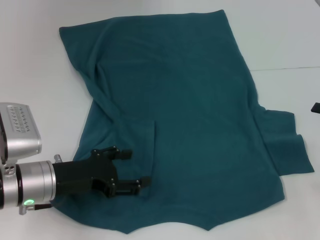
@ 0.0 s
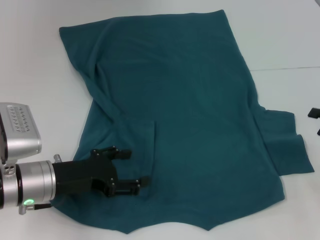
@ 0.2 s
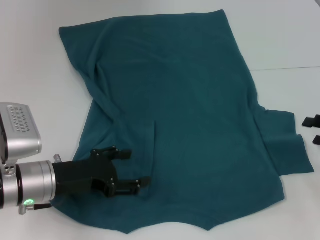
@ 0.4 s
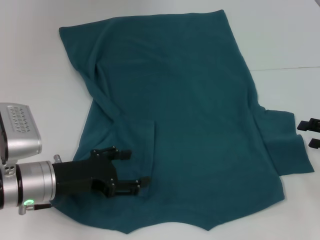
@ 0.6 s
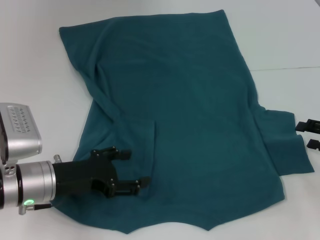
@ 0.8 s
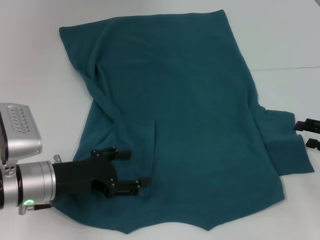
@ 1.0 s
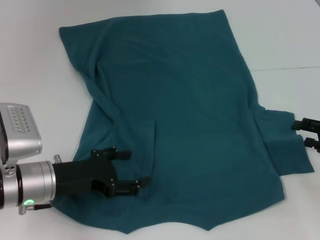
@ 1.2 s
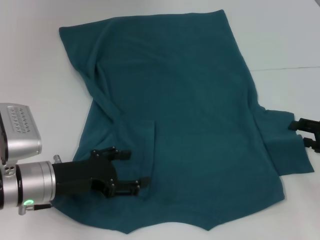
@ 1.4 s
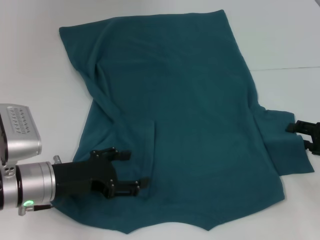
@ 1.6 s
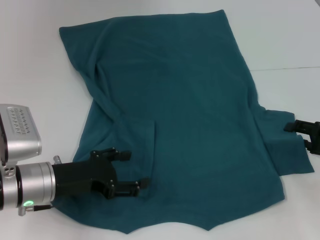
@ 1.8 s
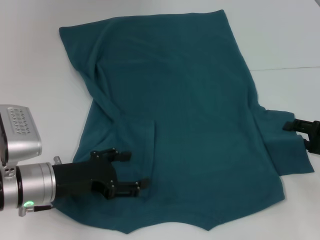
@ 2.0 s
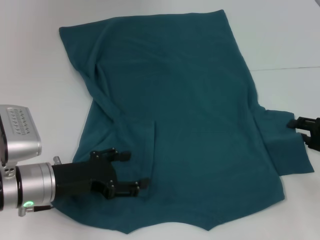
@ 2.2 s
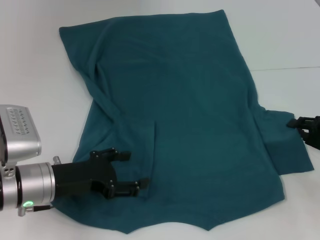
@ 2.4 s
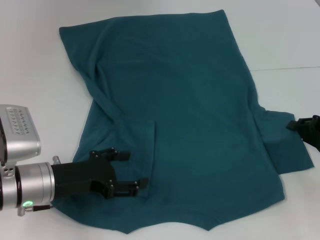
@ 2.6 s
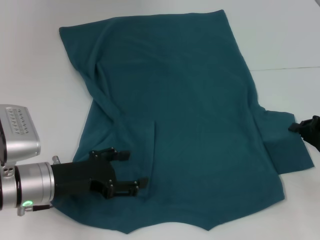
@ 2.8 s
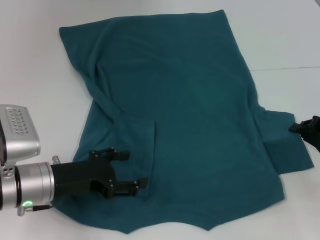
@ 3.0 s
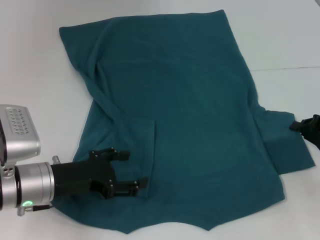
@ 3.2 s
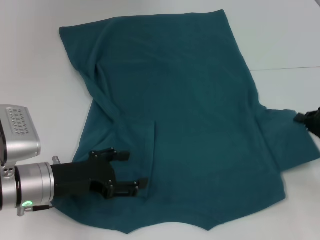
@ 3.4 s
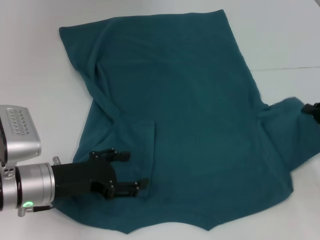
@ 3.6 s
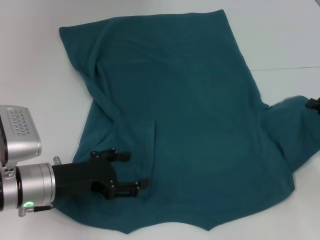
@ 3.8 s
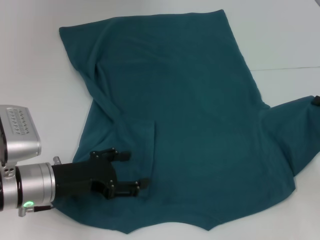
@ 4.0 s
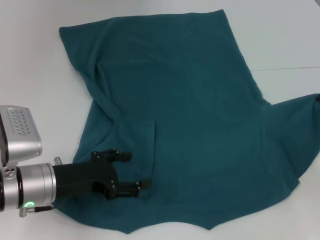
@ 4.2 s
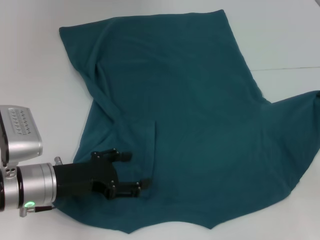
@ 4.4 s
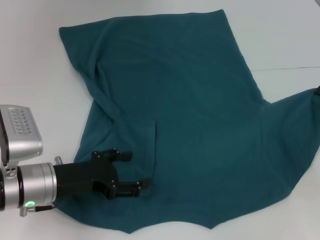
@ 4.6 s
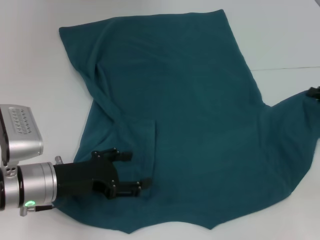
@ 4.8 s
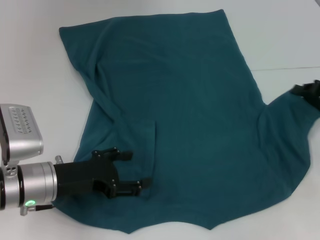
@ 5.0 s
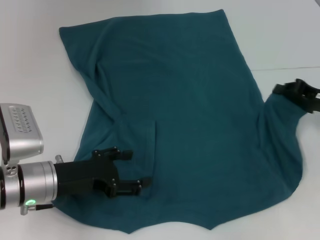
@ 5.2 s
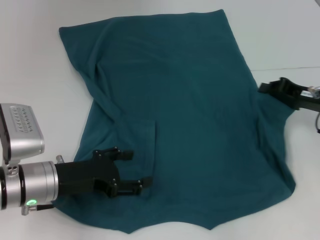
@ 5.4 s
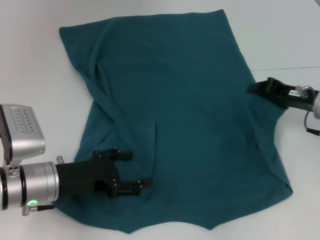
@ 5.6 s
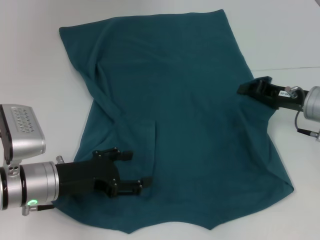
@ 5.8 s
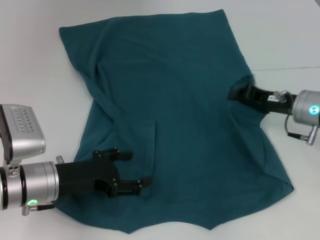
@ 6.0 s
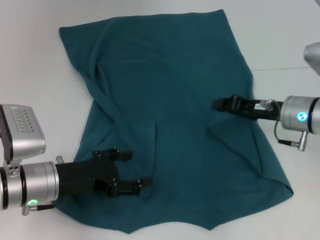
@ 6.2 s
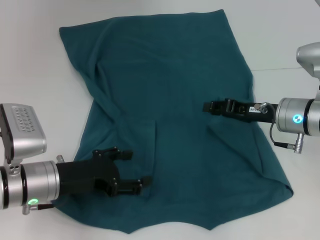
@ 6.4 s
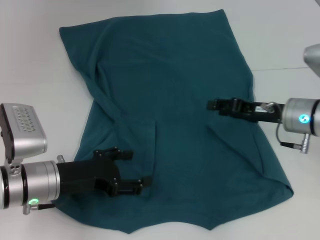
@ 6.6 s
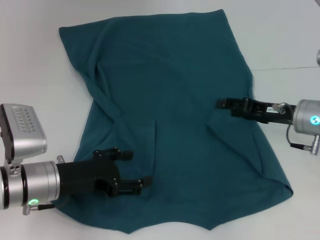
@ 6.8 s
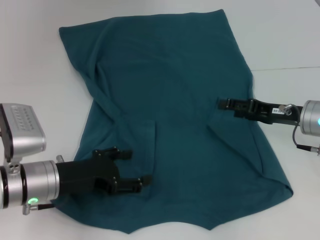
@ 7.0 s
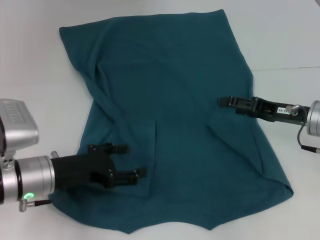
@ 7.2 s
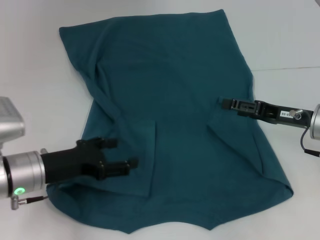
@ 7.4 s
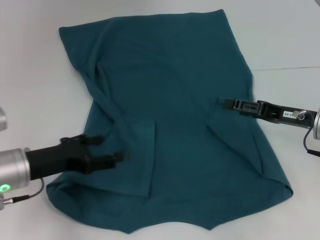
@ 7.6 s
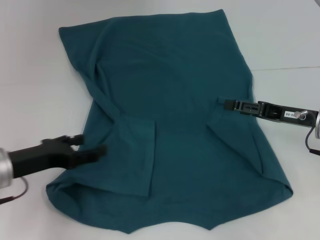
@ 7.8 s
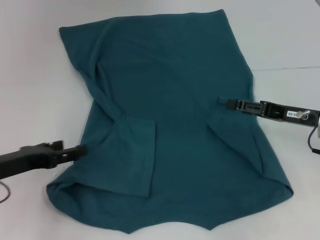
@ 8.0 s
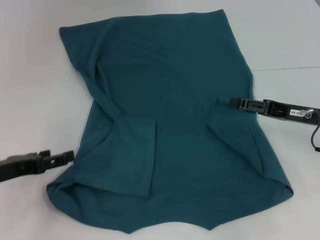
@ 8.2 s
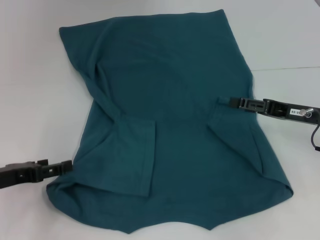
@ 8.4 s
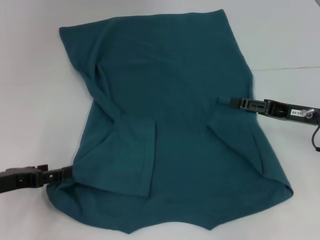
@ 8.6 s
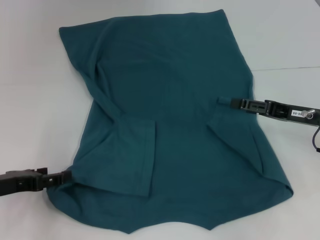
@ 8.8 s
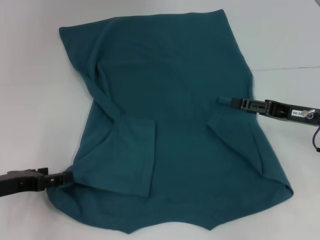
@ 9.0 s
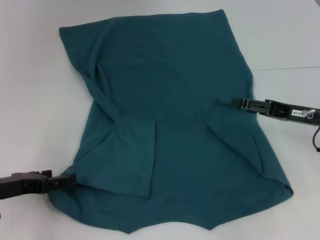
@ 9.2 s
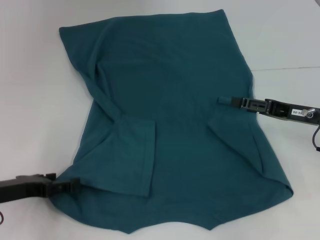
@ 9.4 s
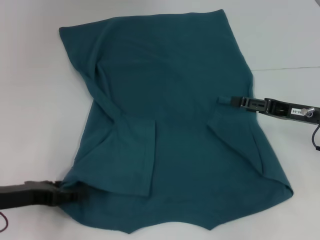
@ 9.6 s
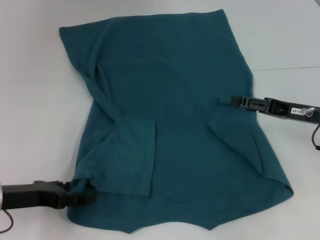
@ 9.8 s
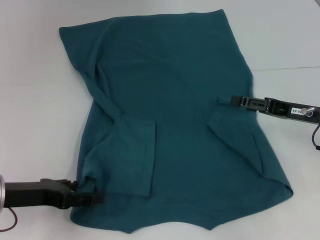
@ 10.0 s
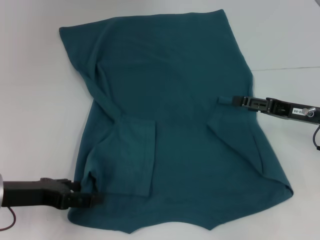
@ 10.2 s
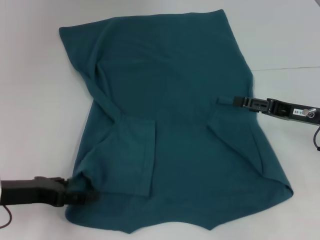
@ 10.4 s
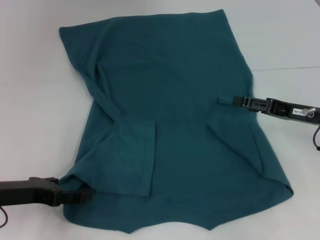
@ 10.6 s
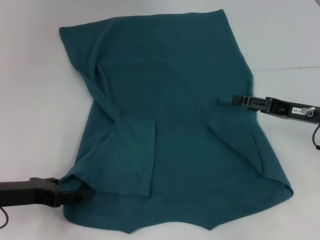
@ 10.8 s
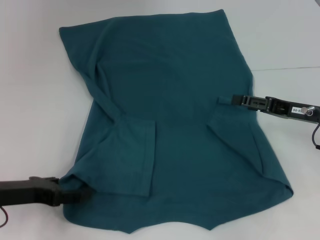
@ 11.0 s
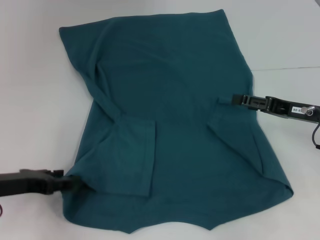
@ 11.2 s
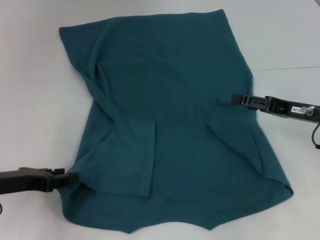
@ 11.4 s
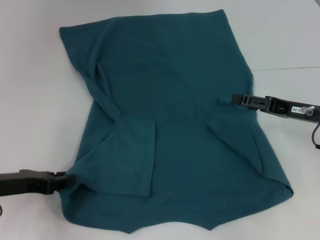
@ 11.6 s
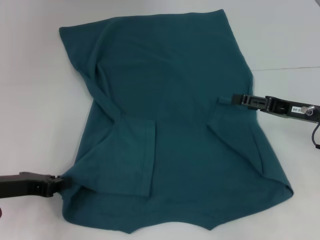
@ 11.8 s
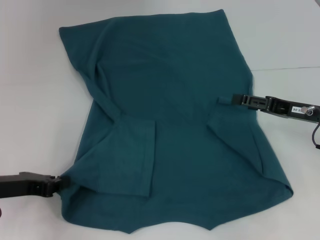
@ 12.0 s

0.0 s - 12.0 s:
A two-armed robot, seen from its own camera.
Step, 0.0 s - 6.4 s: Fold the bottom right sleeve to the right.
0.0 s - 1.6 s: The right gripper moves some 5 cm.
1.6 s - 3.0 s: The right gripper closes up.
3.0 s - 4.4 s: The right gripper moves roughly 5 cm.
4.4 s - 6.0 s: The right gripper heads to the left, covering some 10 cm.
6.0 s - 7.6 s: The right gripper opens its fingers.
7.6 s - 9.0 s: The left gripper goes some 5 cm to the left.
9.0 s - 10.4 s: The grippers make only small movements.
10.4 s - 12.0 s: The left gripper closes up.

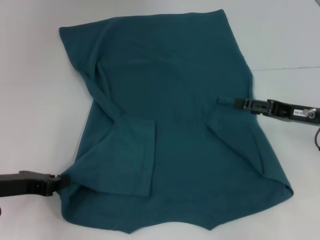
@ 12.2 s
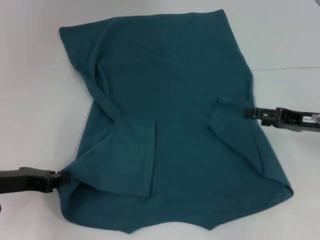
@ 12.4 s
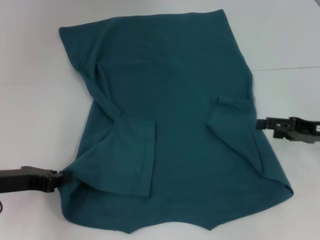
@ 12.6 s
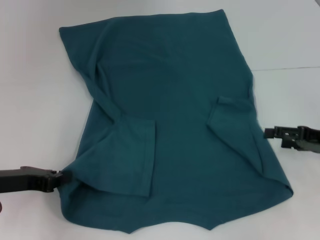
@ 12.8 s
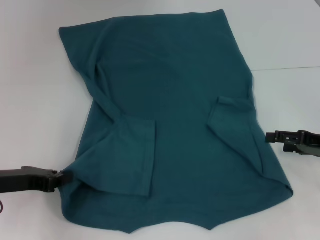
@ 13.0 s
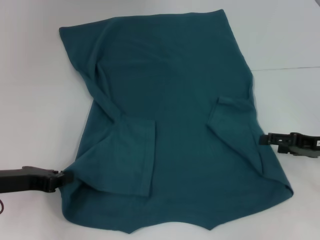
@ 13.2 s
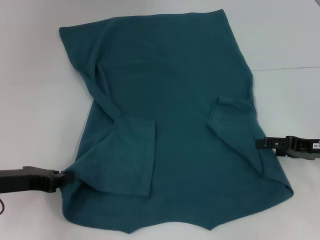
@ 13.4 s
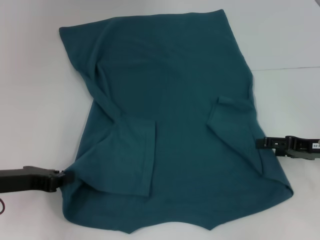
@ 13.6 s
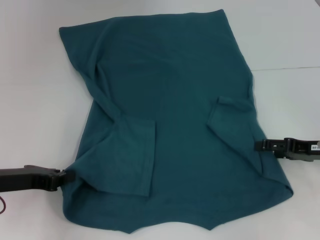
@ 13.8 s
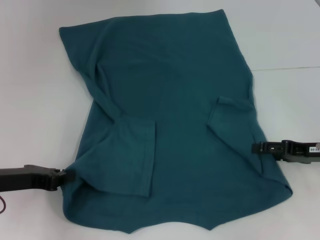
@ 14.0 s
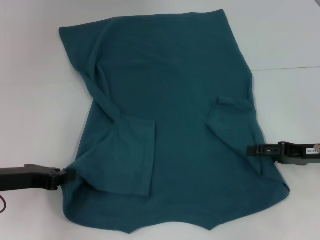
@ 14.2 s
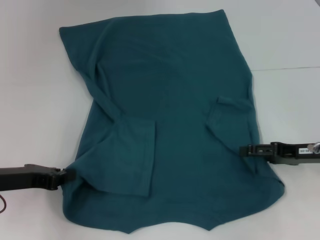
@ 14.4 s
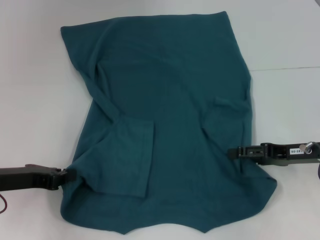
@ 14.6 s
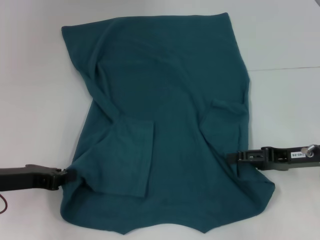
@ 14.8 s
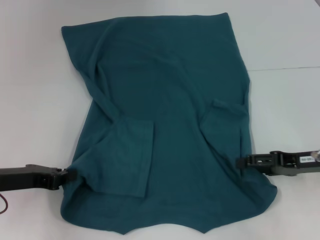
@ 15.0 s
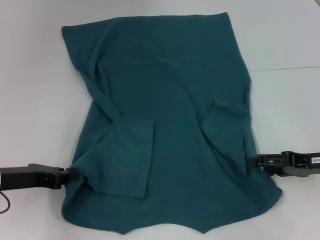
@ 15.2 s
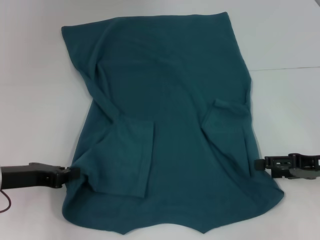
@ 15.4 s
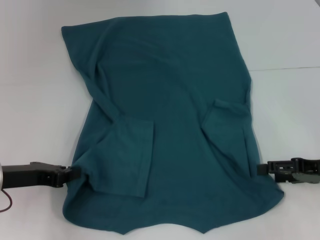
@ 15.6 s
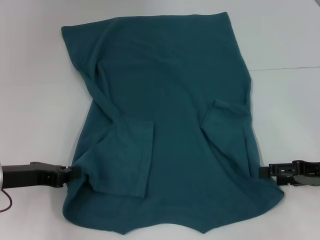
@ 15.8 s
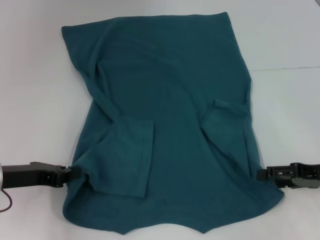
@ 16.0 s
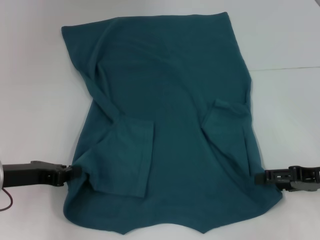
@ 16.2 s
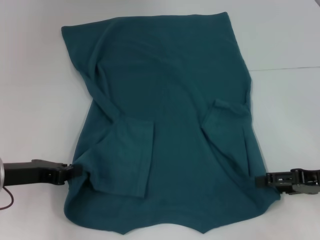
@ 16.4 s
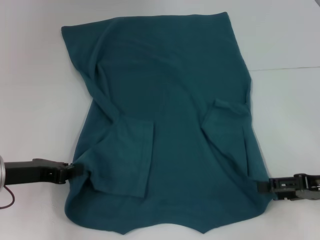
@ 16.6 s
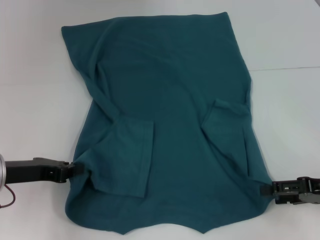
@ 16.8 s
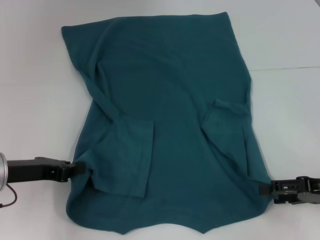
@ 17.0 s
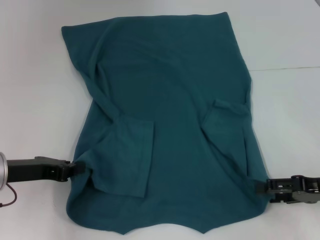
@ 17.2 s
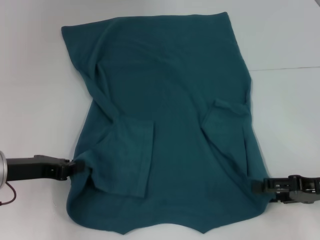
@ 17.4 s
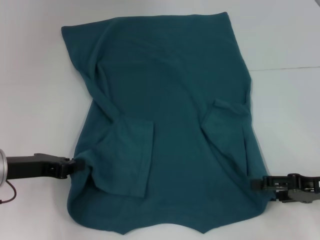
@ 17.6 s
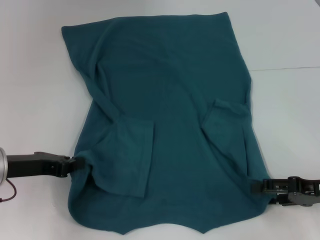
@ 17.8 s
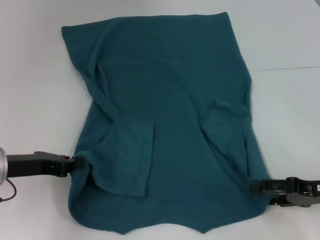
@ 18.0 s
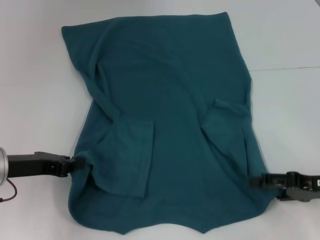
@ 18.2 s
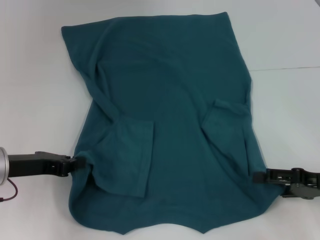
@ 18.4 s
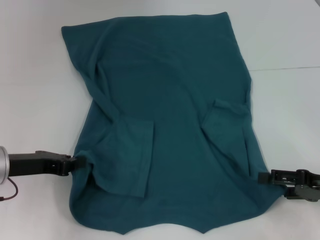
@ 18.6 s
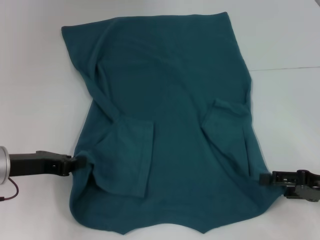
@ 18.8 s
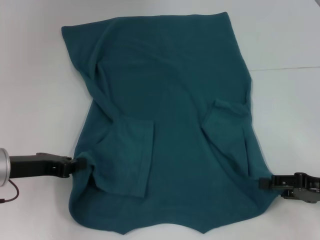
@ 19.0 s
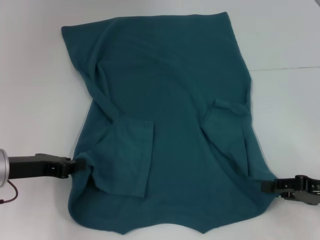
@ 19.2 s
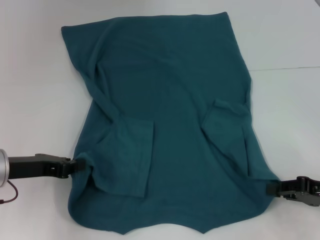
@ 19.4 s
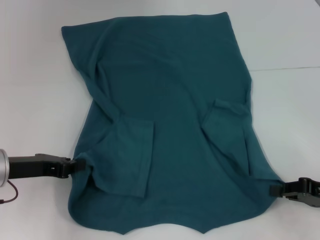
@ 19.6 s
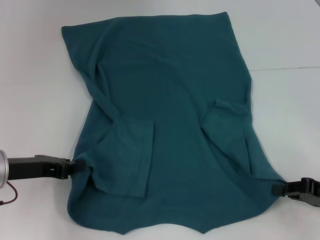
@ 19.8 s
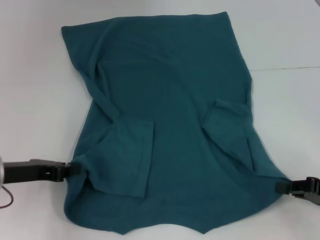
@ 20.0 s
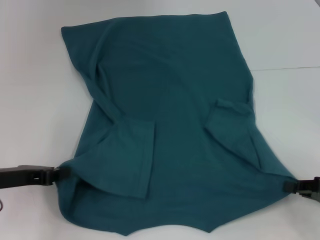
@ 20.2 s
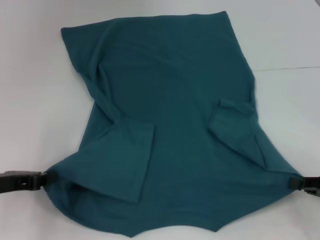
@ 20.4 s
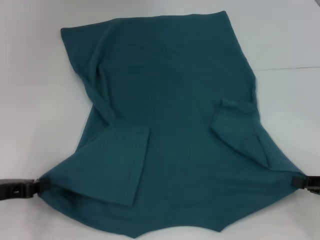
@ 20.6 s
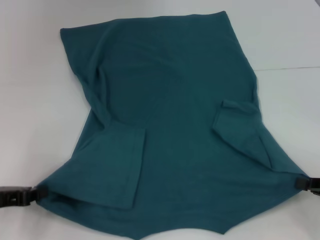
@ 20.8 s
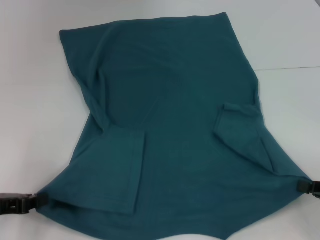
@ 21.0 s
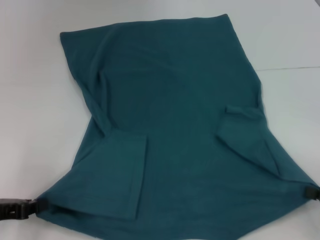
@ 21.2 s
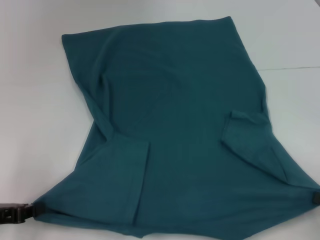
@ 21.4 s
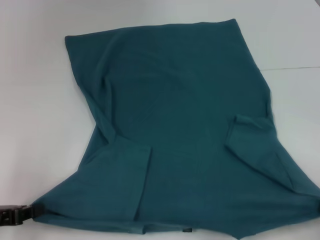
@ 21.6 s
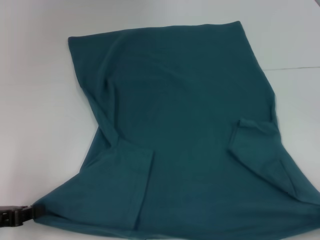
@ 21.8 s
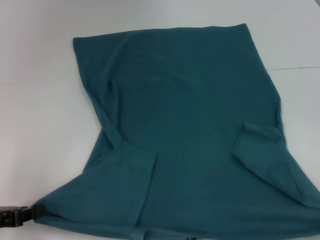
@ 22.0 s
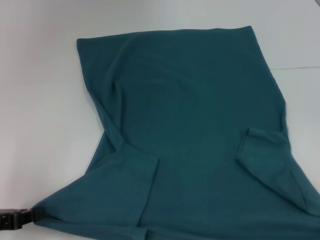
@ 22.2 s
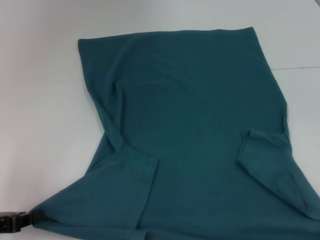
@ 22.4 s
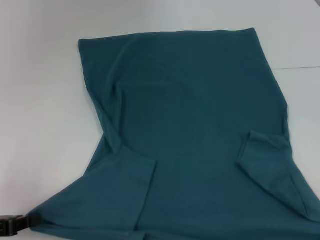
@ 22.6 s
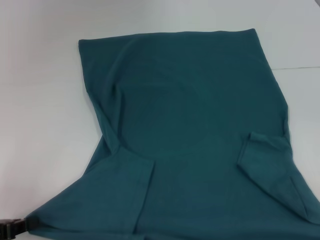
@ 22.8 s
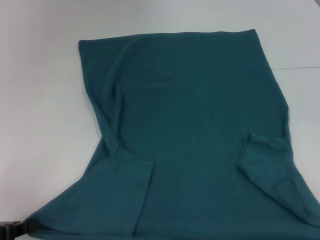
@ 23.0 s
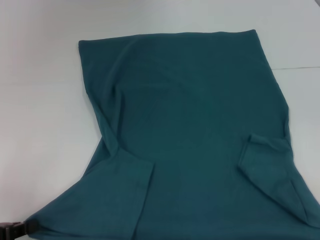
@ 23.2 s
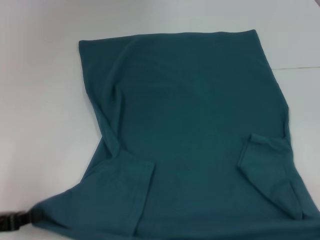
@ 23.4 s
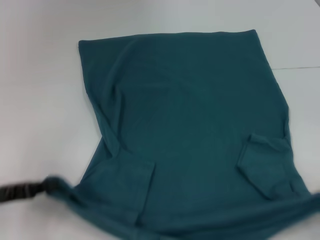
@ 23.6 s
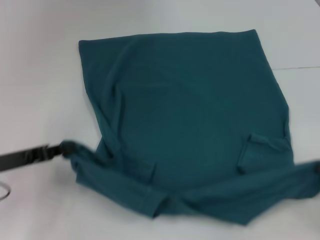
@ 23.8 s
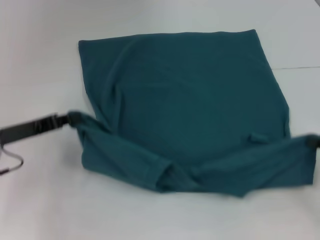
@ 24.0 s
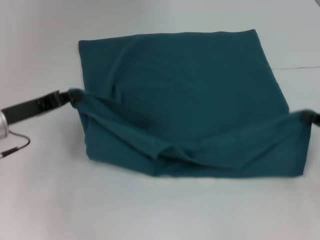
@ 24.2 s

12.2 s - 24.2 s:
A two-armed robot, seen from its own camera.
Step, 12.6 s - 19.6 s: Grab the bottom right corner with your right hand.
12.2 s - 13.8 s: The grippers move only a little.
13.8 s - 18.2 s: The grippers stay close to where they were, moving slightly.
18.2 s - 19.8 s: The right gripper closes its fingers.
19.8 s - 21.2 s: The right gripper ends up about 5 cm from where it was. The left gripper goes some 10 cm backward and to the left.
21.2 s - 22.6 s: The right gripper heads backward, covering roughly 10 cm.
22.6 s - 24.2 s: The left gripper is displaced forward and to the right by roughly 15 cm; the right gripper shifts approximately 20 cm forward.
